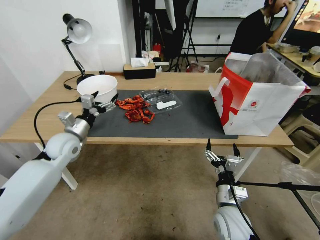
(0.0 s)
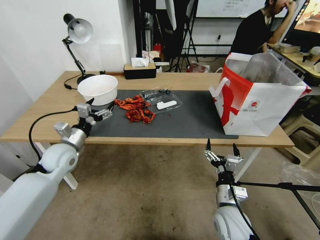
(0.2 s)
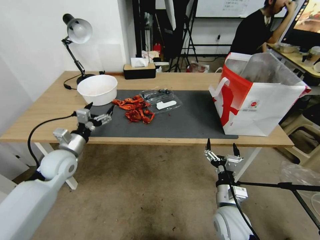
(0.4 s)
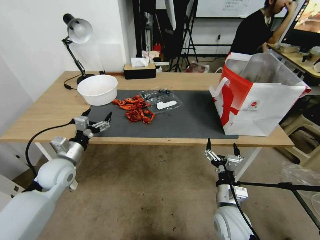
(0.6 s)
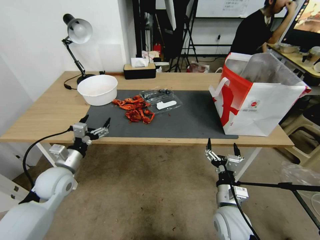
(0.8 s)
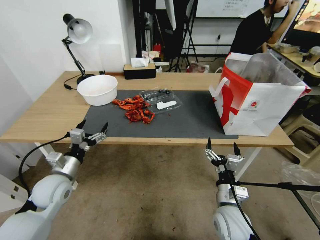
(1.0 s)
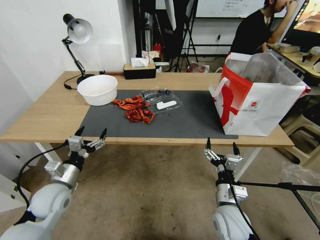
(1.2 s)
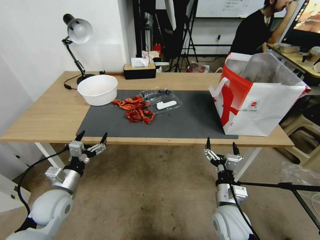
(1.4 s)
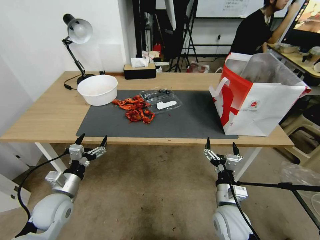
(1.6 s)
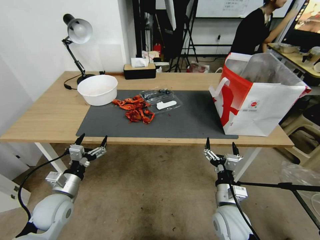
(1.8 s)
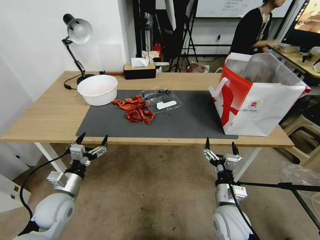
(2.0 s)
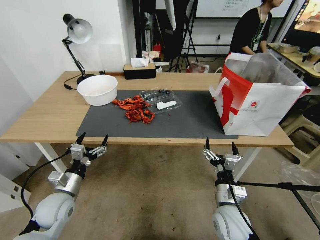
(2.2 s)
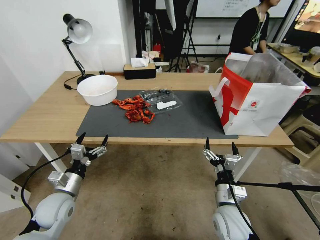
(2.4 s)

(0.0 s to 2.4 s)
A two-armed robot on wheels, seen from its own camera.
0.0 s - 1.2 s: The left gripper goes some 15 cm backward and downward.
1.2 s - 2.4 s: The grippers stay close to where they were, moving slightly.
